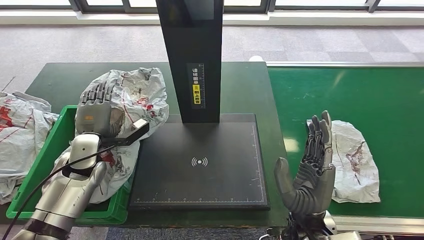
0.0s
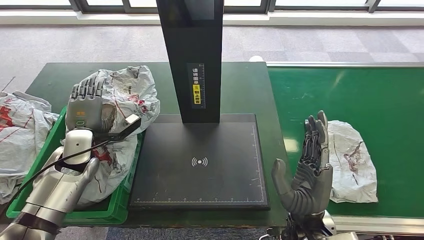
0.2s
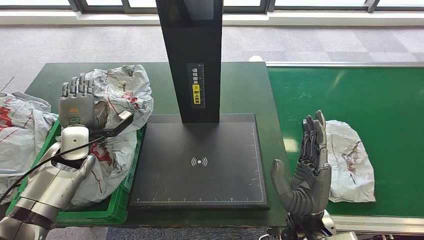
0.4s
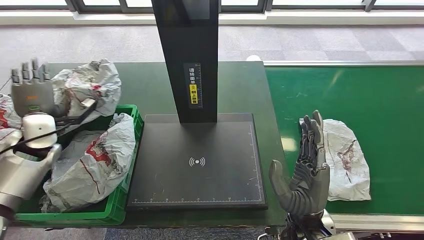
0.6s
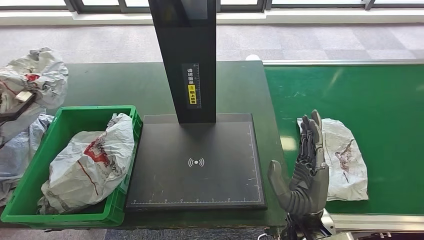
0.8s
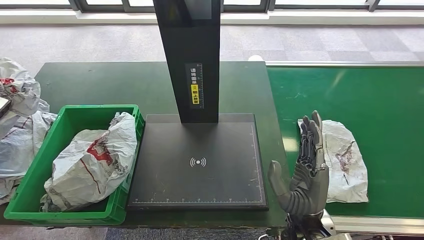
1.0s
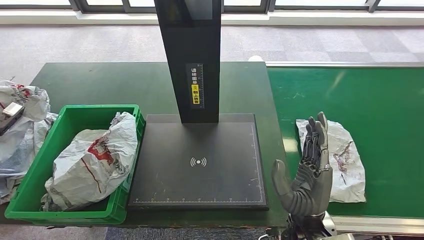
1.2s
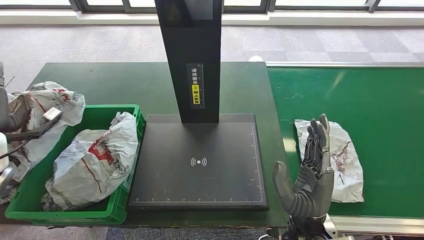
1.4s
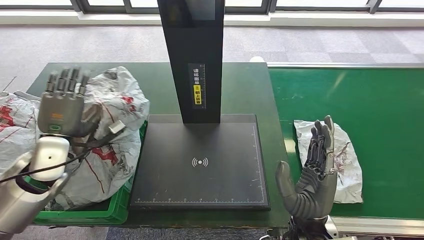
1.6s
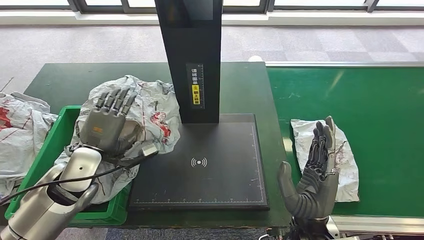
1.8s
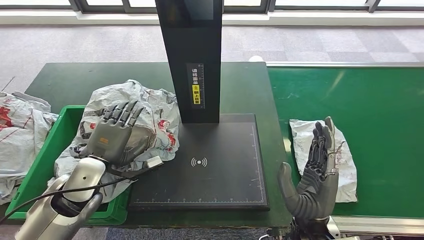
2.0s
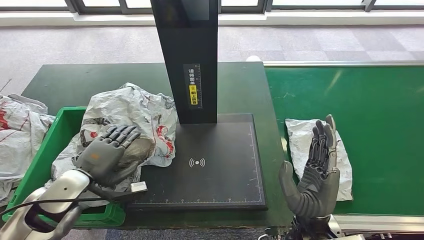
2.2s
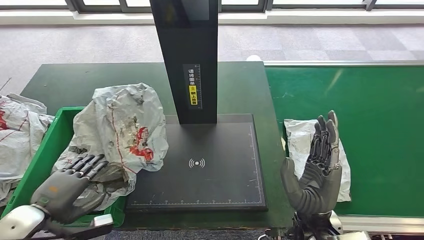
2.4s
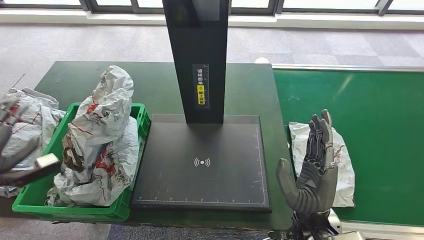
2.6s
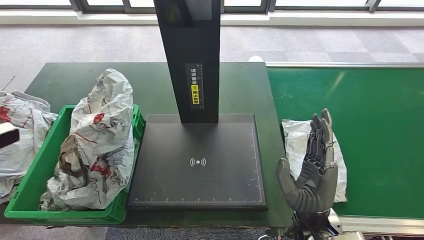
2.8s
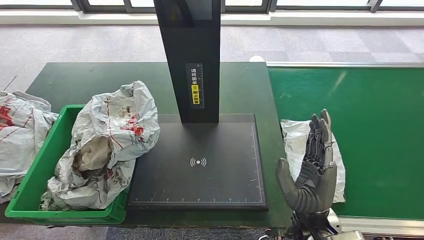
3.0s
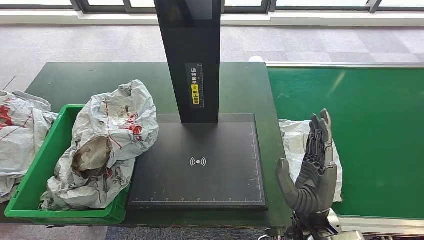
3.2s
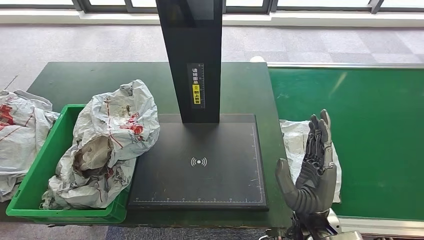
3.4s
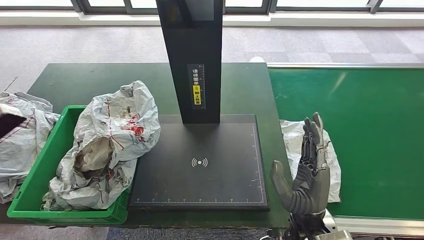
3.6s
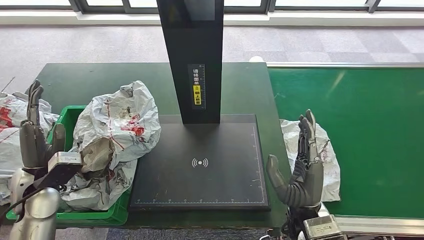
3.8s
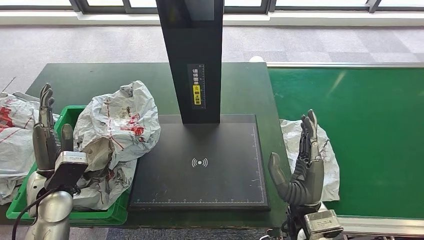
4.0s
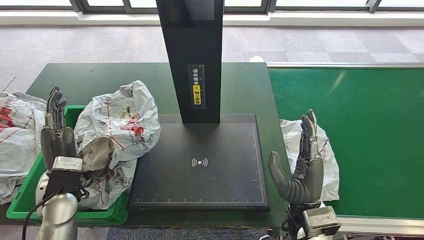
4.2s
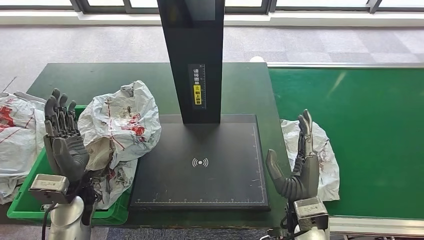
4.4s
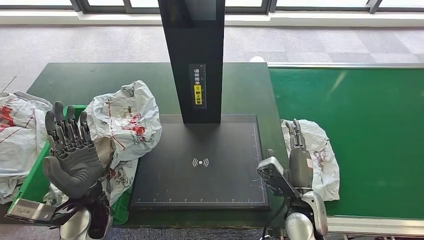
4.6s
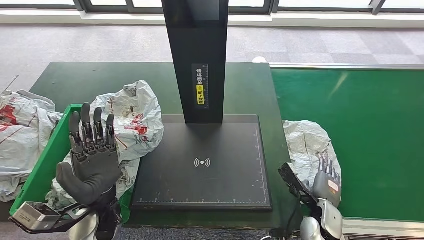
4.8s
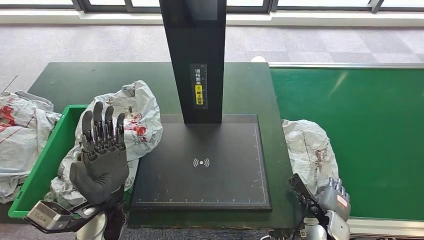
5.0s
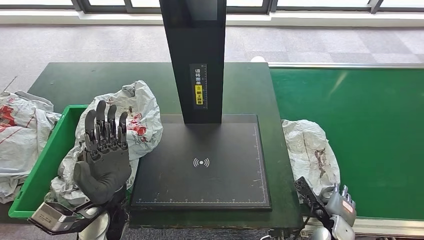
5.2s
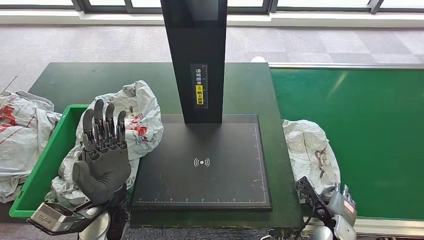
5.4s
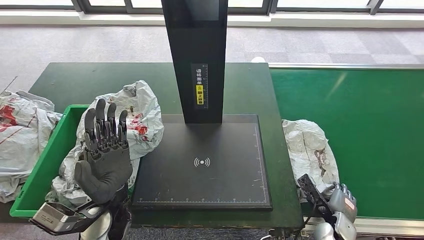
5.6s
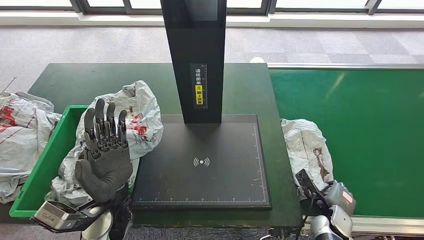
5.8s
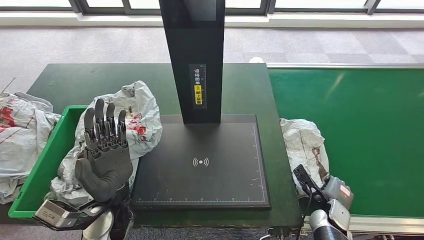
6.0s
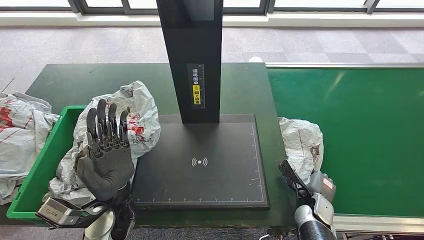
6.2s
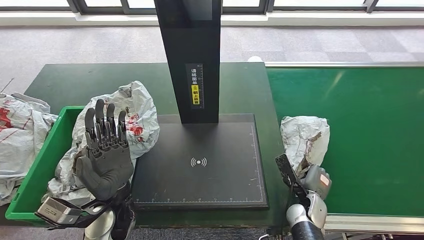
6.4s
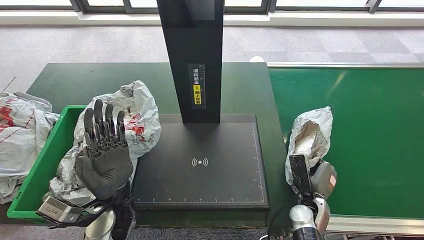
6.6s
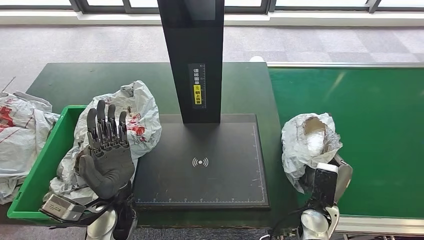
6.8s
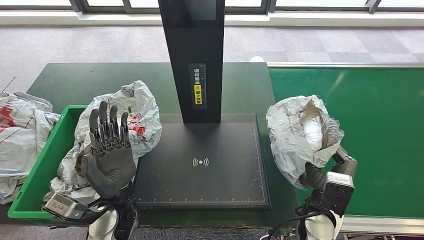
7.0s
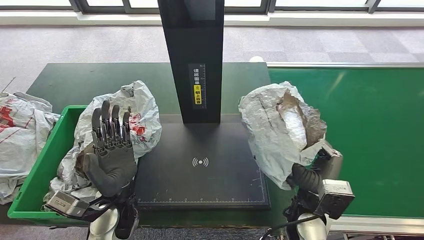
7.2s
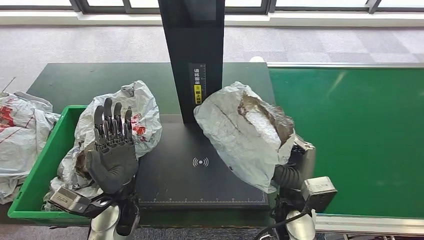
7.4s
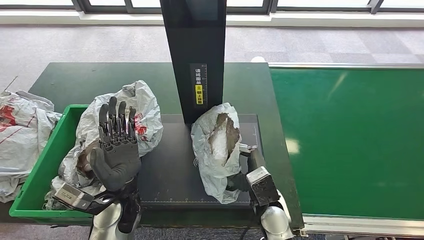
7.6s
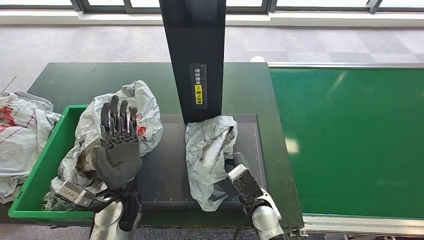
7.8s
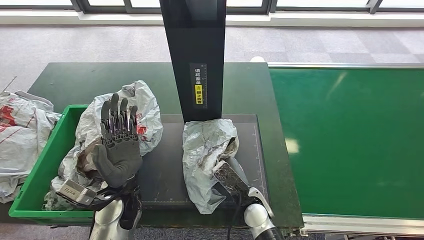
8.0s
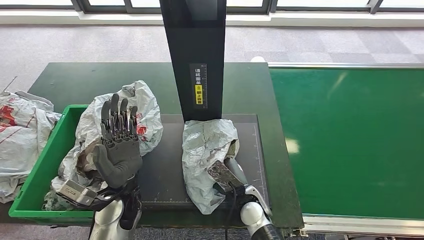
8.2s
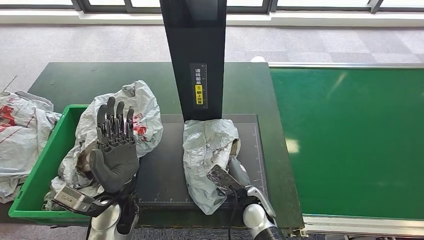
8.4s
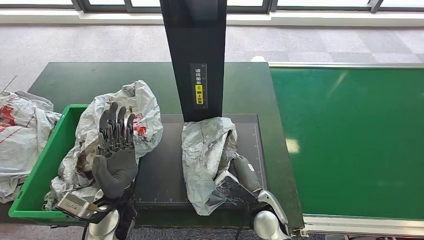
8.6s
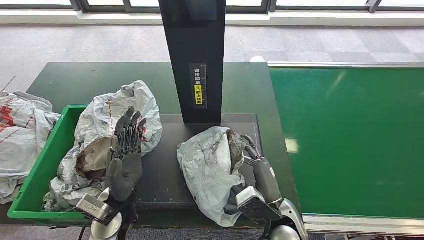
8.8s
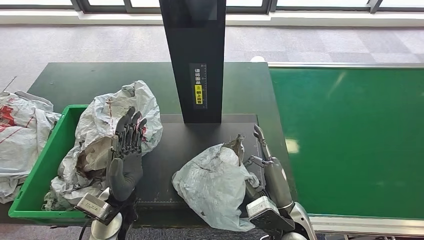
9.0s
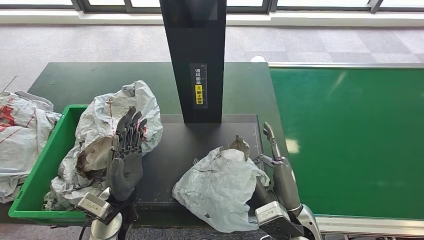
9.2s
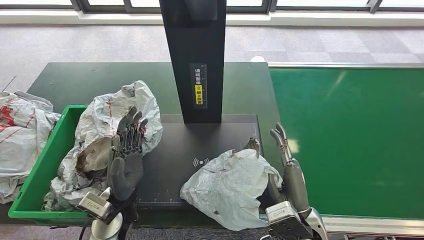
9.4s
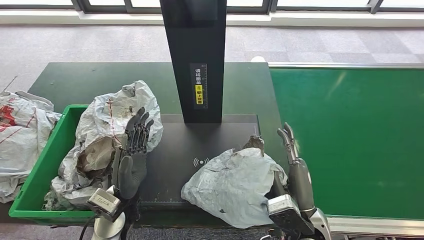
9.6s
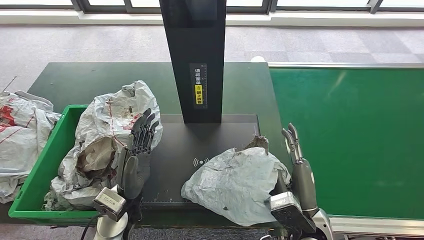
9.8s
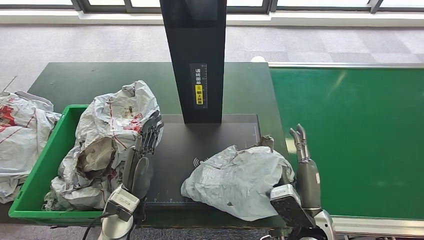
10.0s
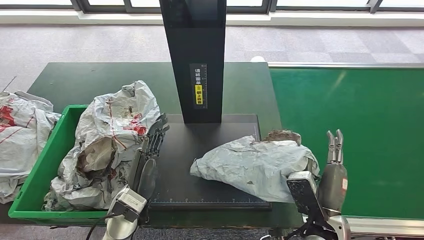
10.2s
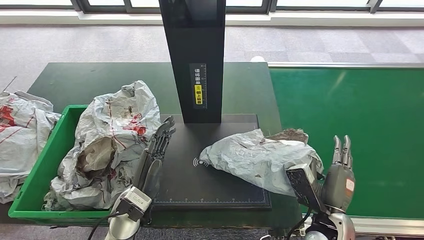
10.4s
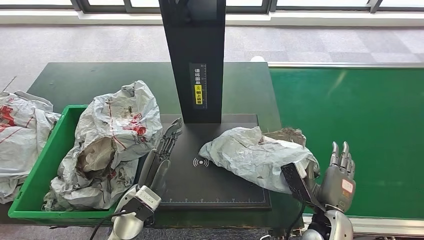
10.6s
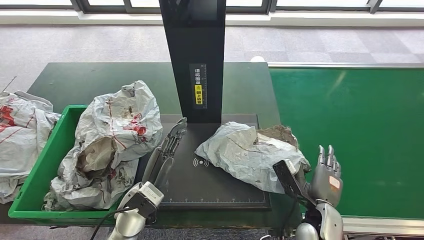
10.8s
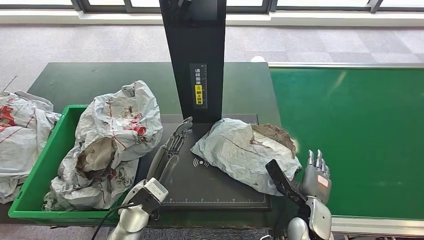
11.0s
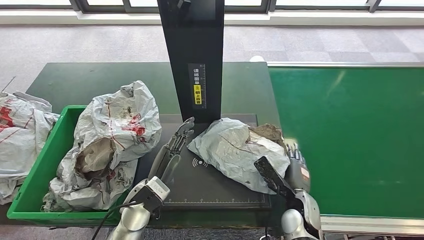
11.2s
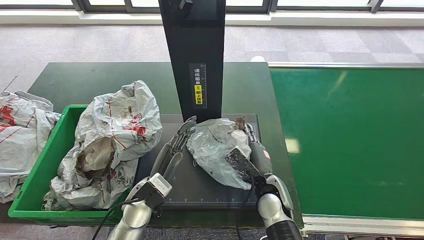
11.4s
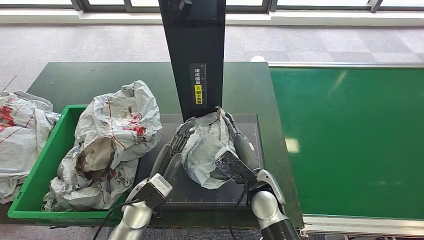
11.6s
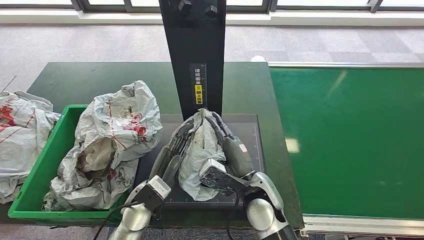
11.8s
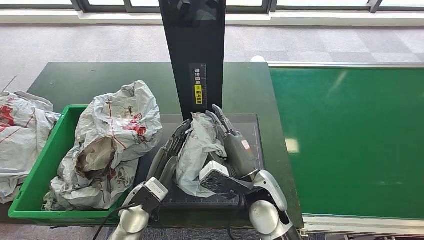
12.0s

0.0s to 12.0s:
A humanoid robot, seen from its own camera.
Step, 0.0s to 3.6s: Place the parcel into the delivery box.
Step, 4.4s to 7.2s: Pick up the parcel from the conveyor belt.
3.0s to 4.4s: The left hand moves to the right and downward, some 35 cm.
7.6s to 9.0s: The right hand changes place by roughly 5 cm.
9.0s to 10.4s: The right hand shifts some 10 cm to the right.
10.4s to 12.0s: The right hand travels to the left and forward by some 15 cm.

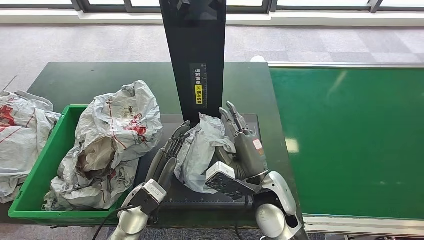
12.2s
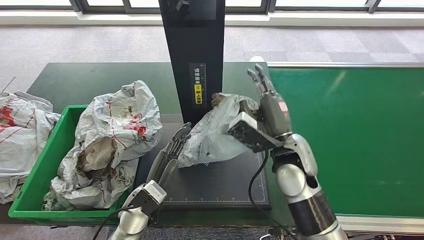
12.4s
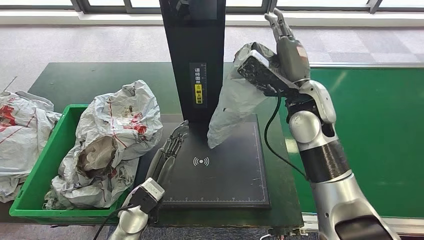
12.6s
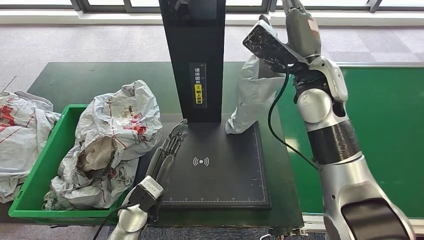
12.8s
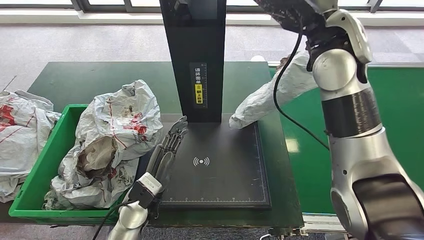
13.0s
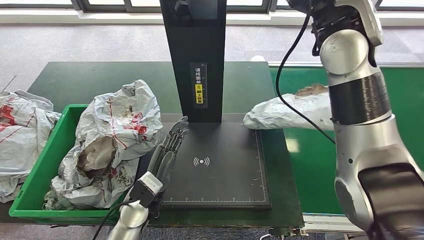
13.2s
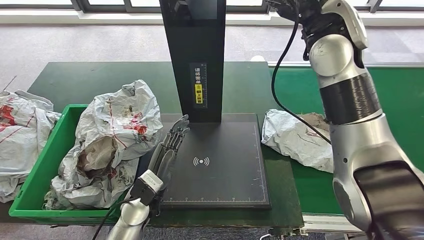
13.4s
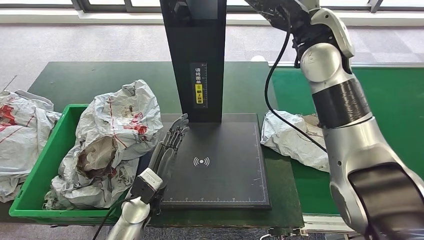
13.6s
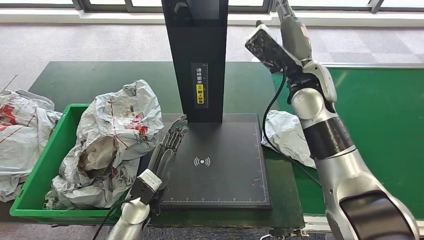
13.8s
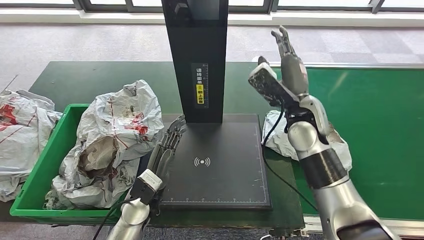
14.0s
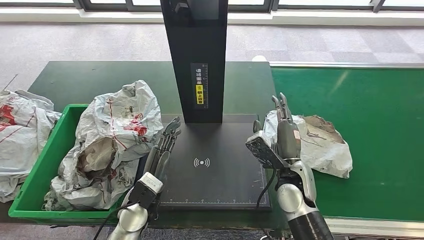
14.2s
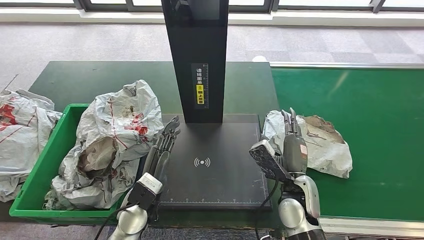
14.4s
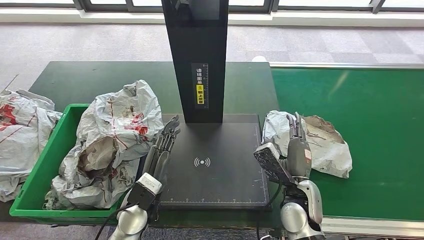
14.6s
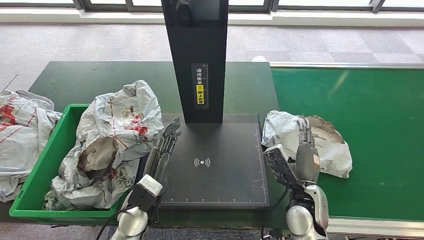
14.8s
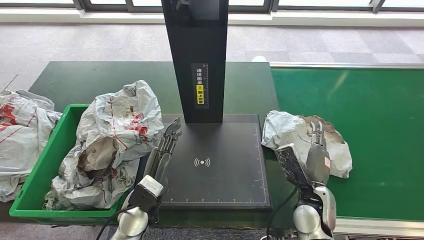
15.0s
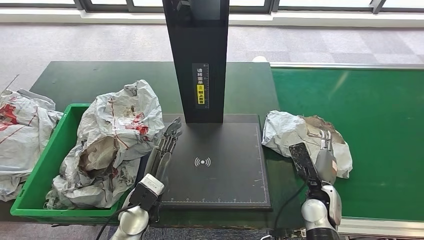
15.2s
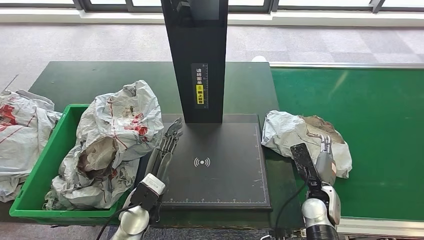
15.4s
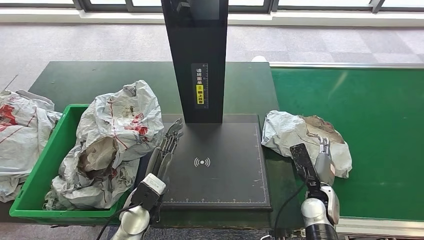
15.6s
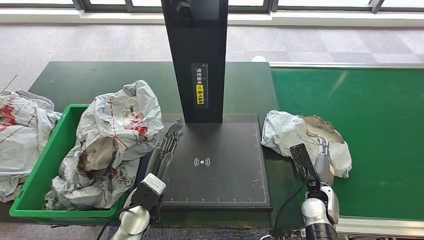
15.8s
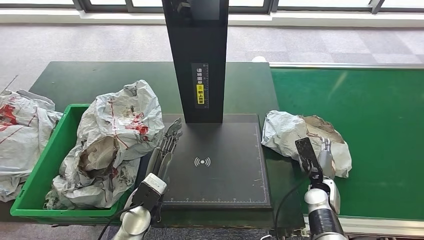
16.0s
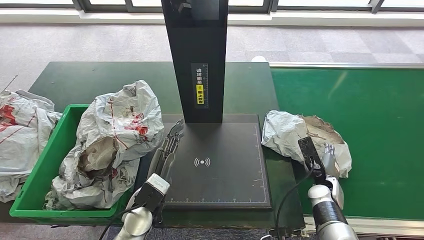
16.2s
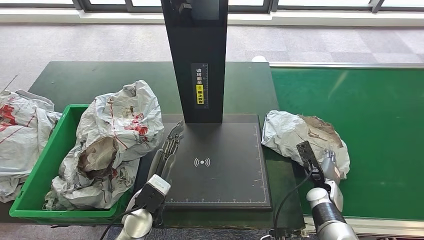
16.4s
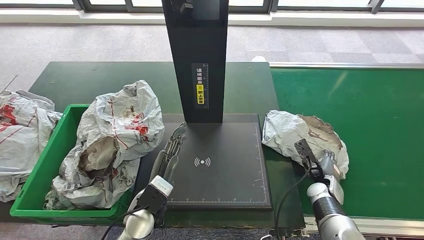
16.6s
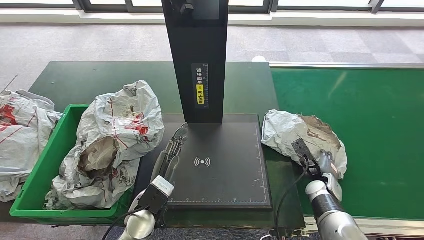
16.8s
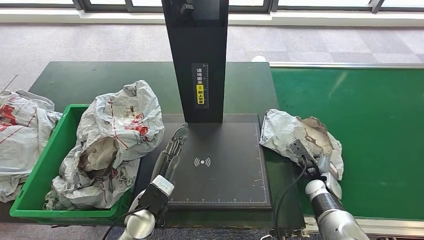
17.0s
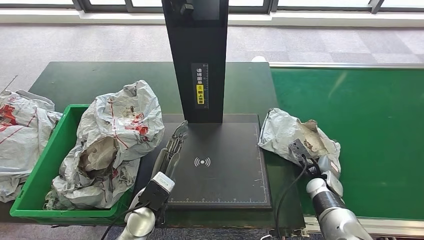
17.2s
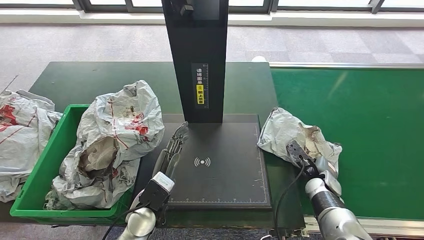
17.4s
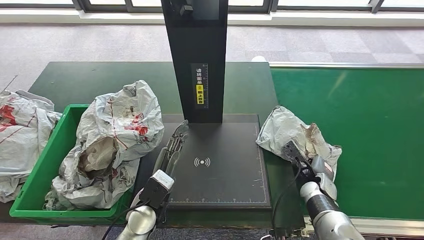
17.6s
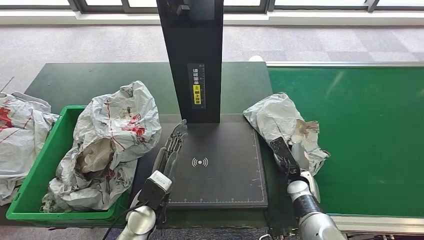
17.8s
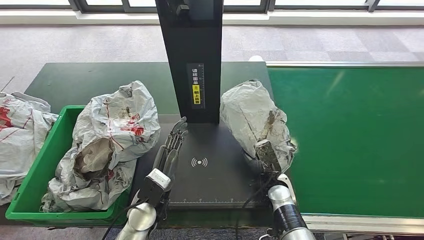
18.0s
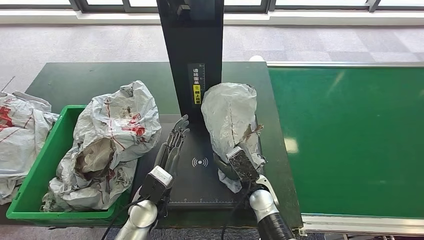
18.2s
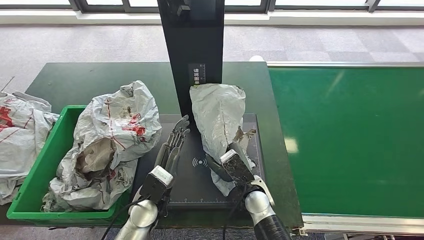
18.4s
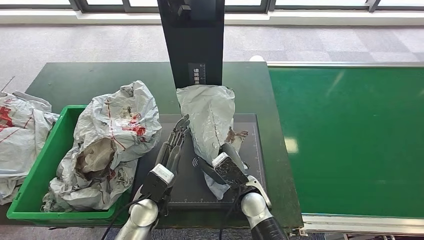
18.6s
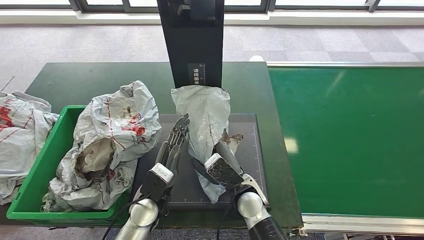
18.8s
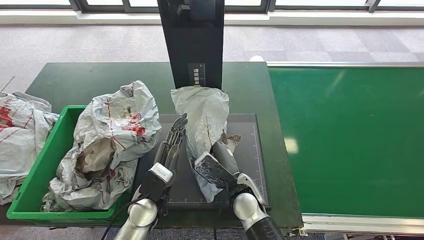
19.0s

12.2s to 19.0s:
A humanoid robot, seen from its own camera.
15.0s to 16.2s: The right hand travels to the right, downward and forward by roughly 15 cm.
